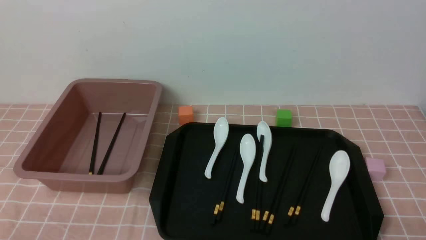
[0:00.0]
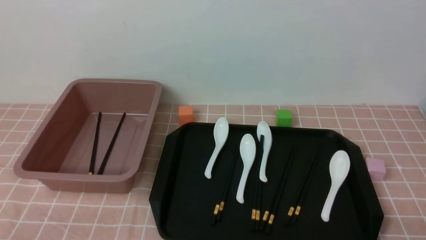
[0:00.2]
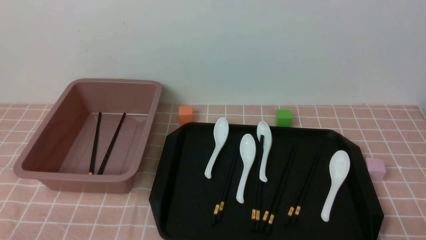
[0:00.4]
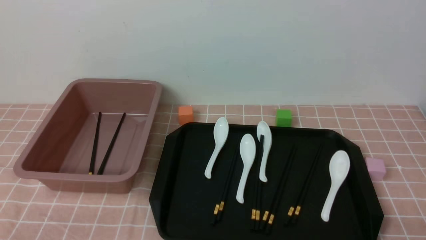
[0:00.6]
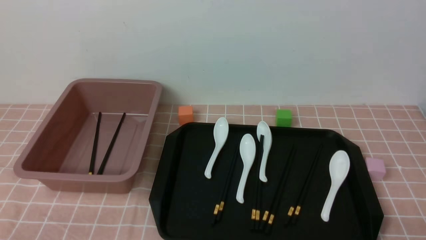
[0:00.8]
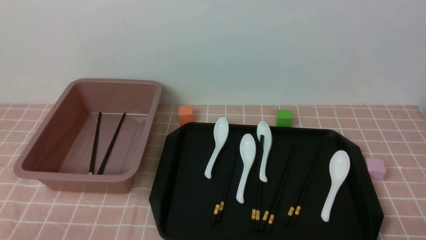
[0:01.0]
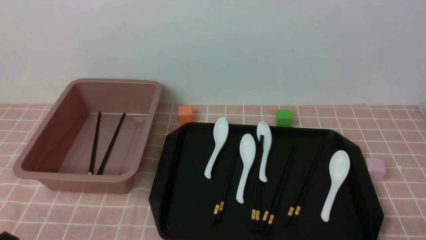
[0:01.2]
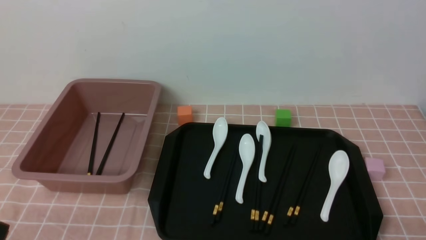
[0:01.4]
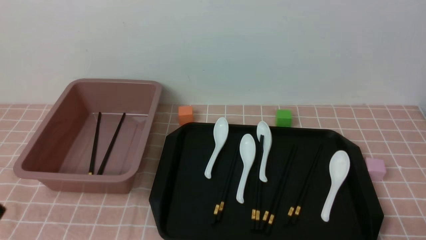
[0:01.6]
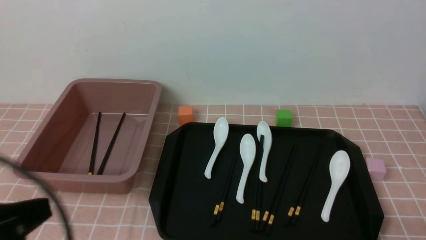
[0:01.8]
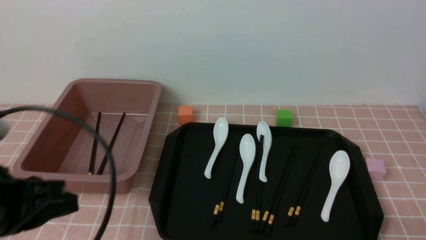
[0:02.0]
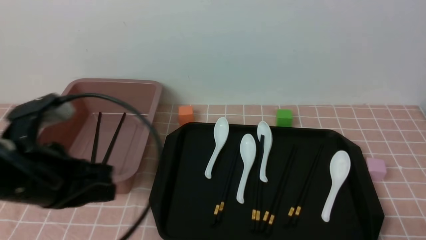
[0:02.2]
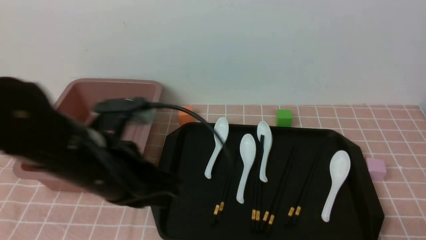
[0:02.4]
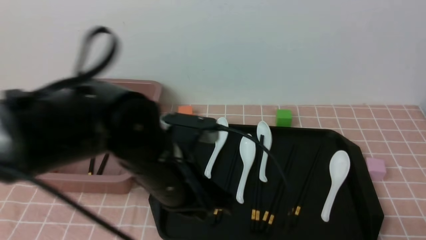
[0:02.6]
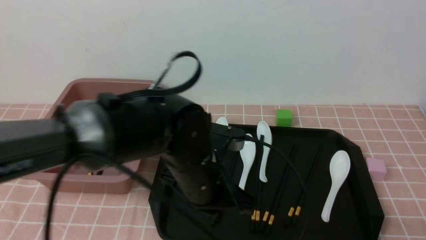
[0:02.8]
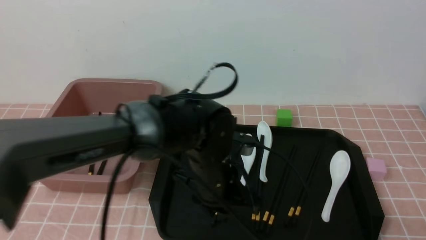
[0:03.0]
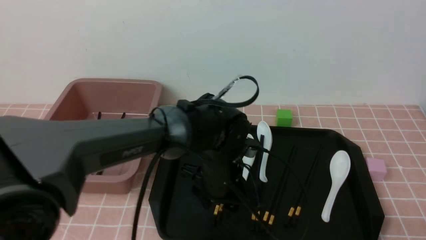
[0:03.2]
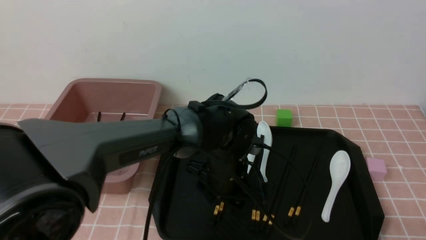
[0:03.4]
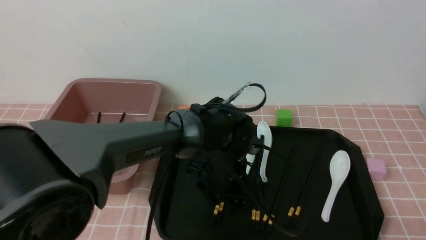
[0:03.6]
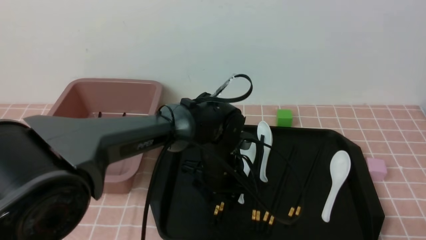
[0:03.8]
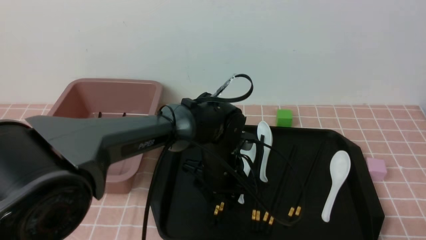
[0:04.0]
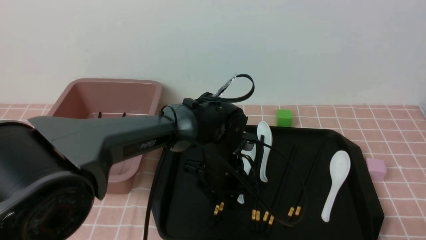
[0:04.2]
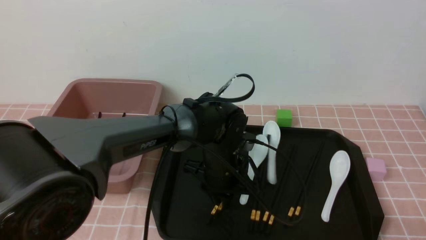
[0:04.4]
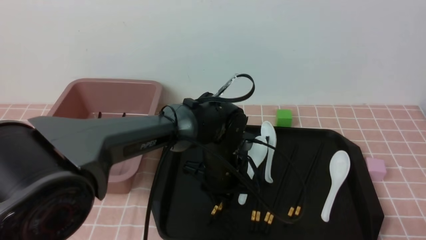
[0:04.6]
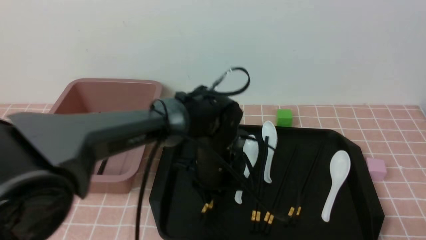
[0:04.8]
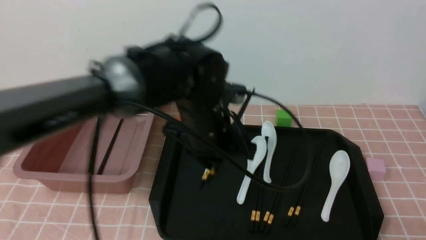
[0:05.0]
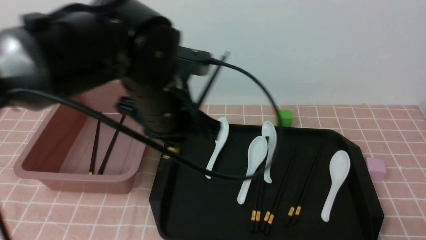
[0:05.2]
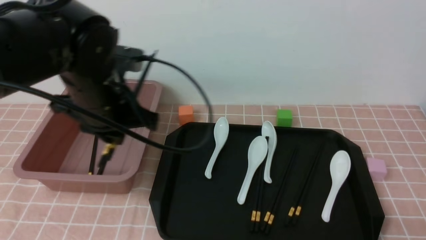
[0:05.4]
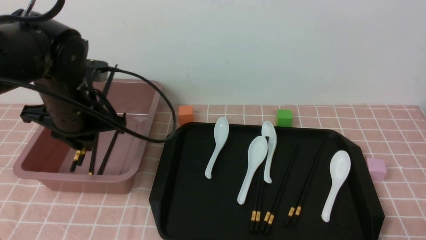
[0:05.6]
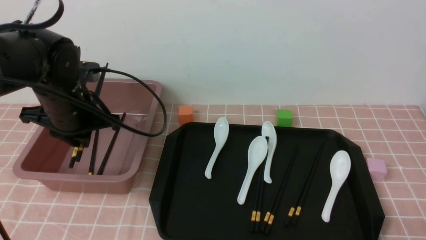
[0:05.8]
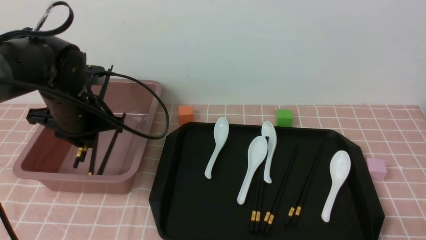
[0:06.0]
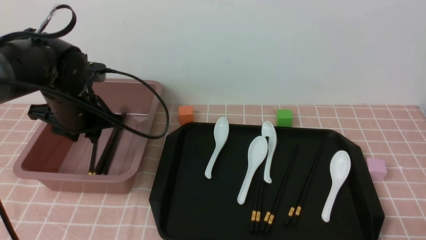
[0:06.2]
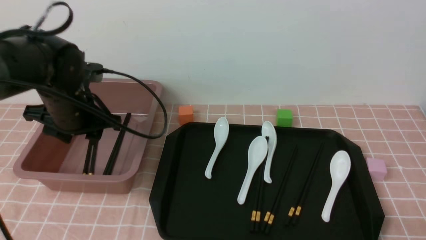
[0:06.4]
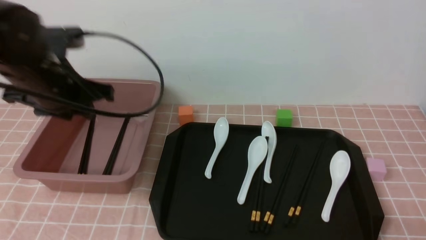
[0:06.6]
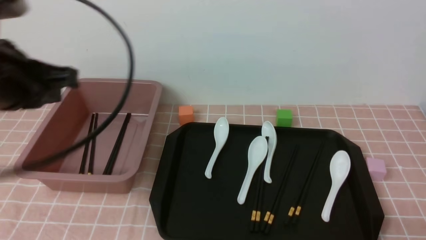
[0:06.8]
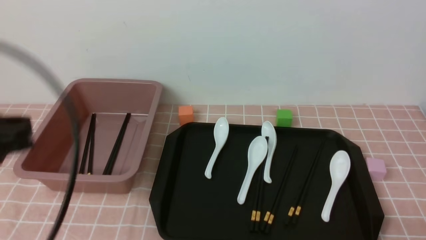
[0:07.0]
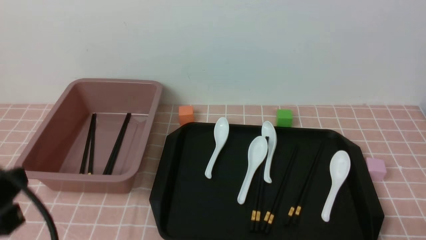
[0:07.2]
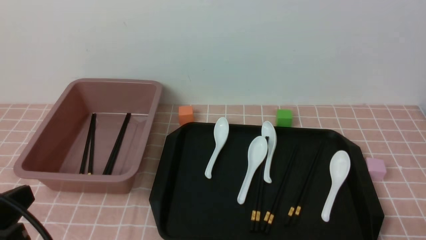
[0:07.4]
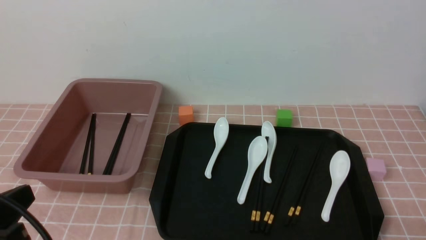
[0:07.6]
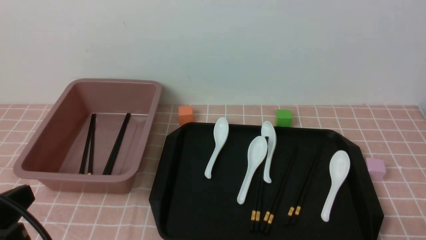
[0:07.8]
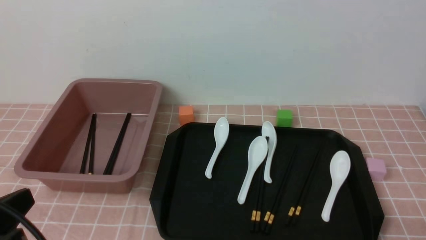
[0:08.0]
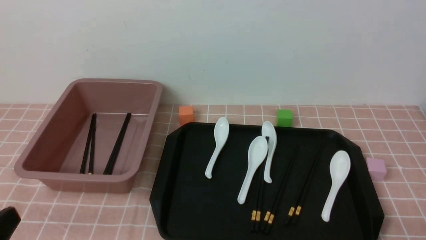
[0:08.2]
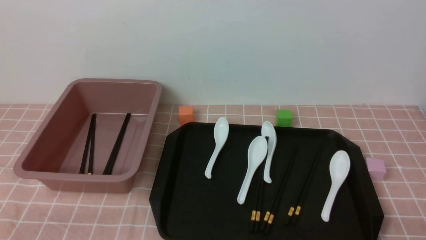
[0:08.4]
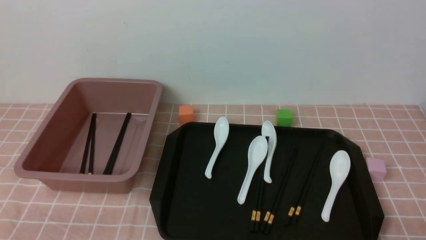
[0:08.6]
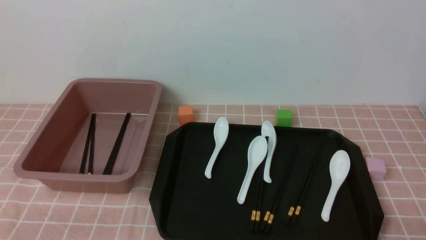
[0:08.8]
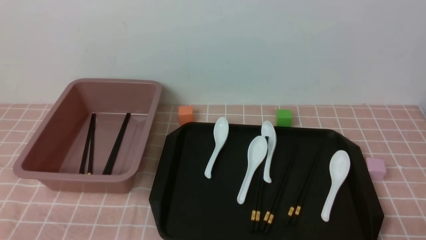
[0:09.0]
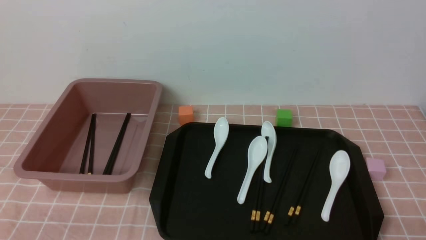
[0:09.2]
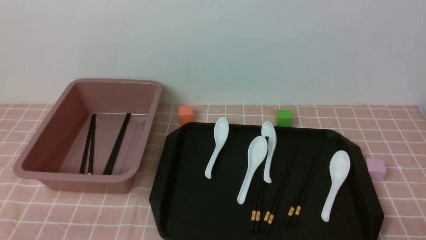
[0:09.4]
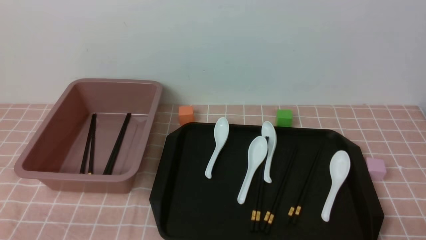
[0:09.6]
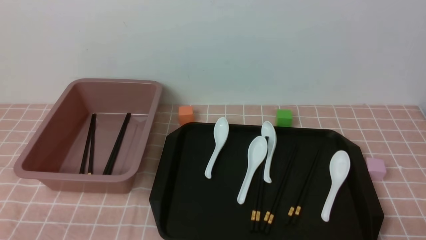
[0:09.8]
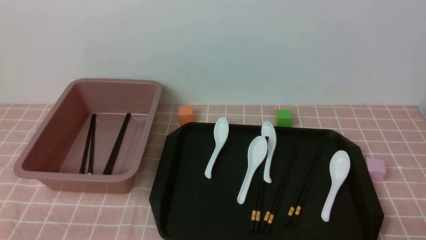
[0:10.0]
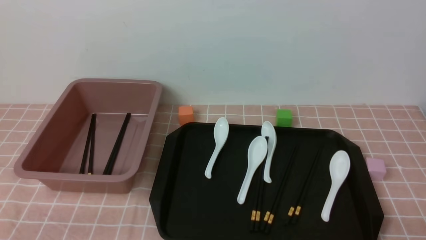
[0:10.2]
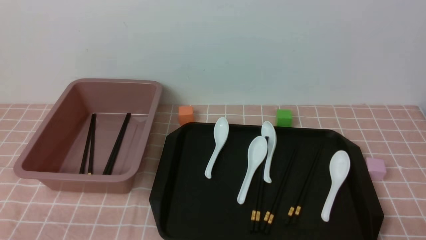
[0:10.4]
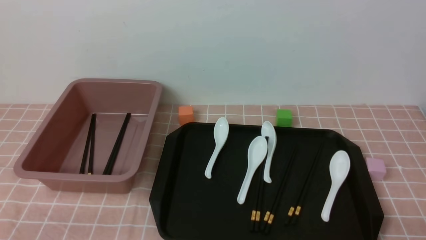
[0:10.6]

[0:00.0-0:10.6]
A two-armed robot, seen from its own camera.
Step, 0:00.0 to 0:05.0: use the left arm to grab a pair of chopsticks.
Step, 0:05.2 to 0:06.4: use the left arm to put the chopsticks into the lunch box.
0:01.6 to 0:03.0: The left gripper goes approximately 35 cm to the right and forward, and opens.
0:03.0 to 0:04.6: The left gripper goes some 5 cm forward, and opens, then closes once more.
0:04.6 to 0:06.0: The left gripper travels to the left and upward by roughly 25 cm.
0:06.0 to 0:07.6: The left gripper is displaced backward by about 25 cm, and closes.
0:07.6 to 0:09.0: The left gripper heads downward, covering about 10 cm.
0:09.0 to 0:10.6: Both grippers stay about where they are.

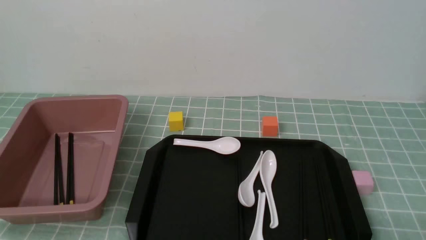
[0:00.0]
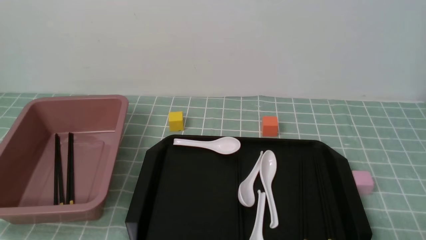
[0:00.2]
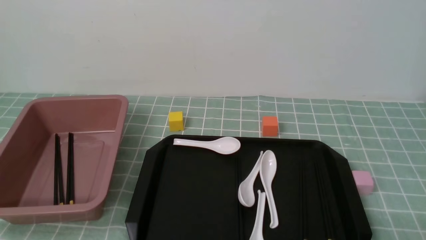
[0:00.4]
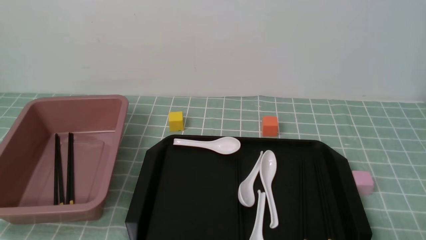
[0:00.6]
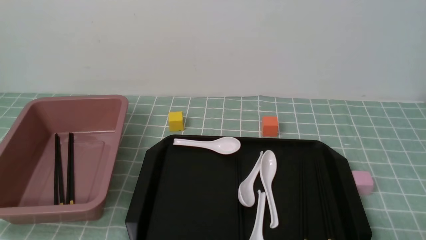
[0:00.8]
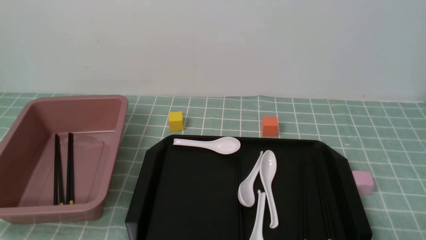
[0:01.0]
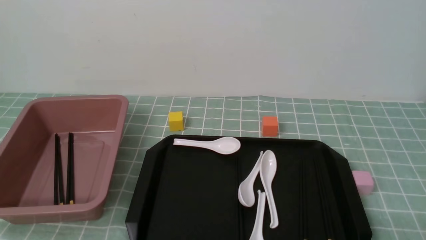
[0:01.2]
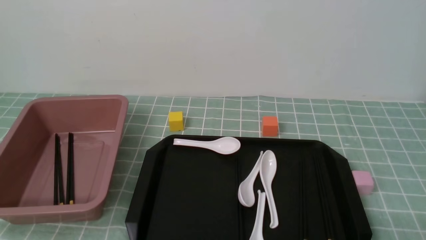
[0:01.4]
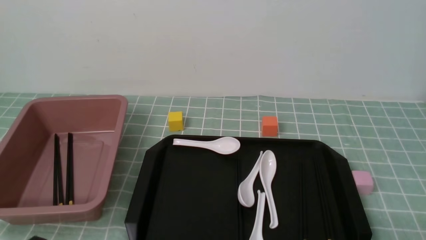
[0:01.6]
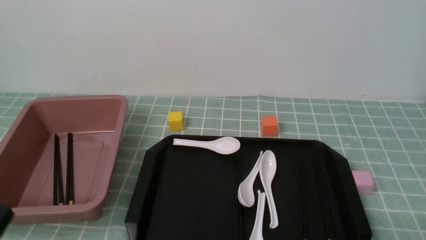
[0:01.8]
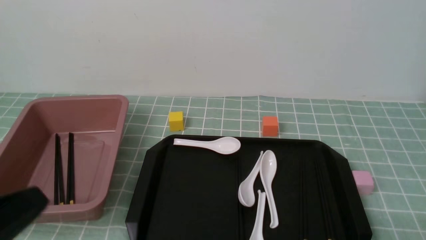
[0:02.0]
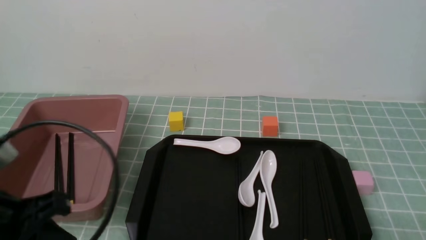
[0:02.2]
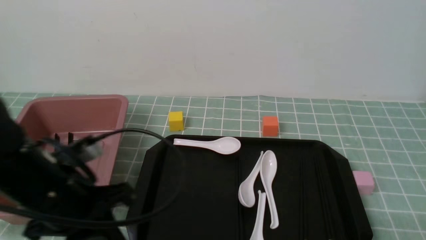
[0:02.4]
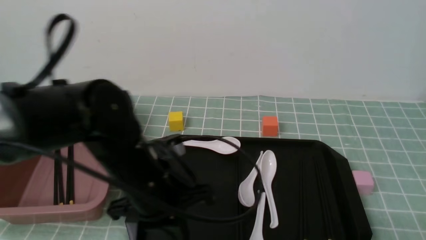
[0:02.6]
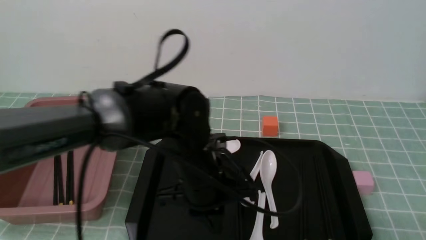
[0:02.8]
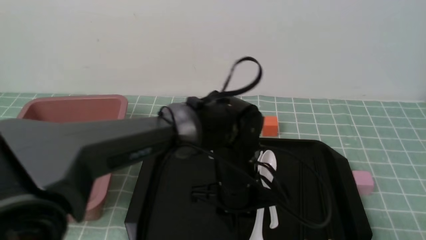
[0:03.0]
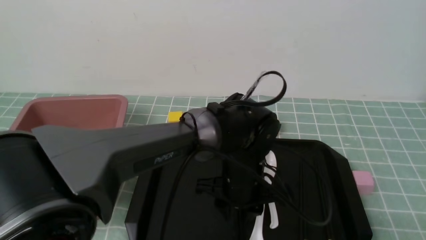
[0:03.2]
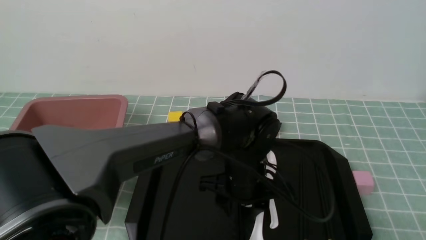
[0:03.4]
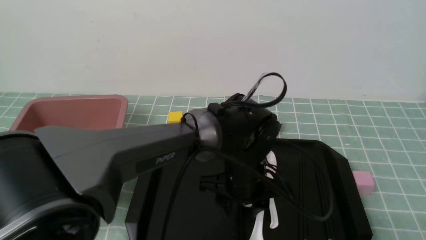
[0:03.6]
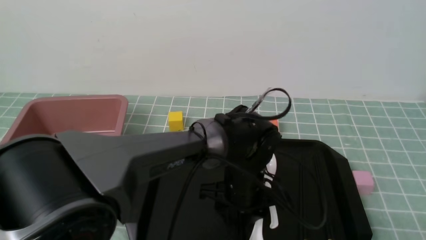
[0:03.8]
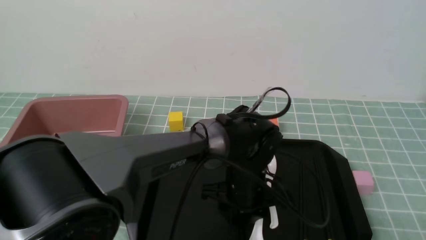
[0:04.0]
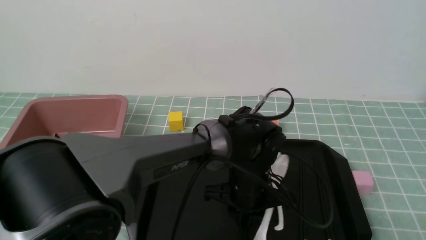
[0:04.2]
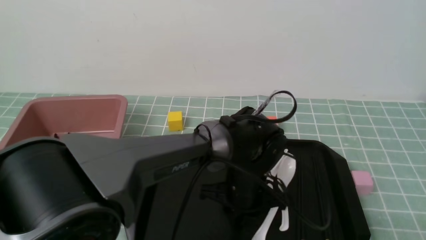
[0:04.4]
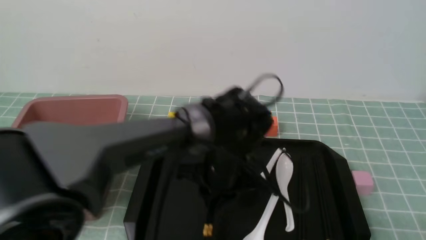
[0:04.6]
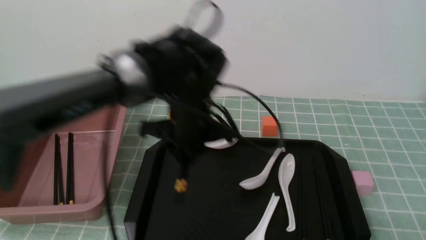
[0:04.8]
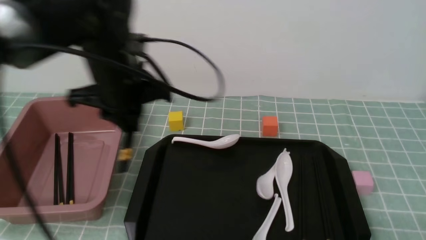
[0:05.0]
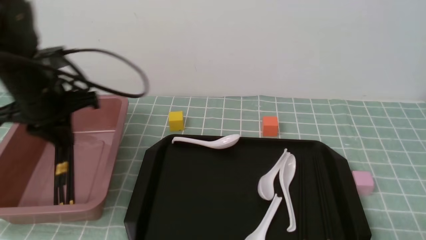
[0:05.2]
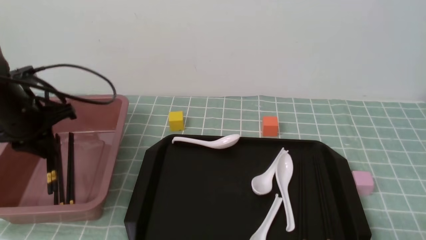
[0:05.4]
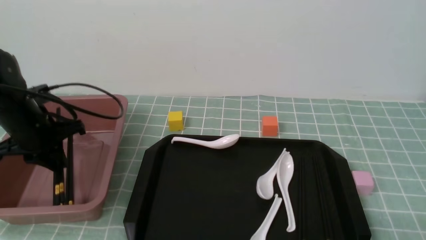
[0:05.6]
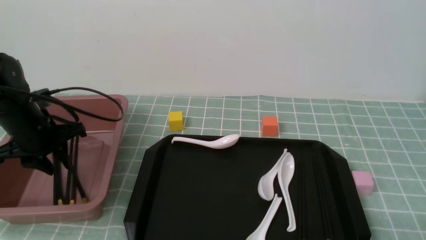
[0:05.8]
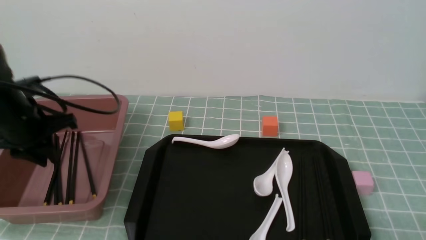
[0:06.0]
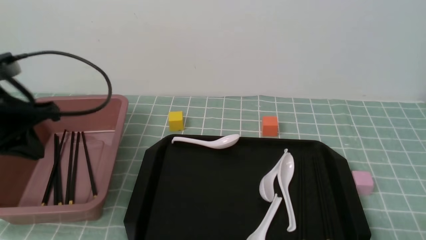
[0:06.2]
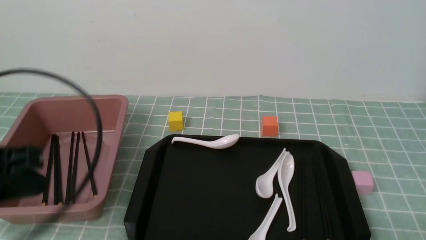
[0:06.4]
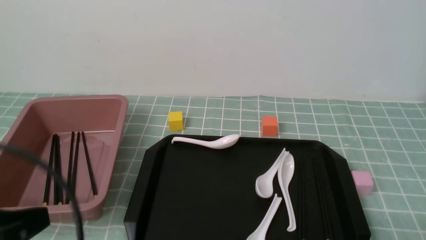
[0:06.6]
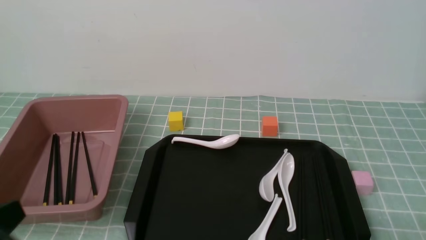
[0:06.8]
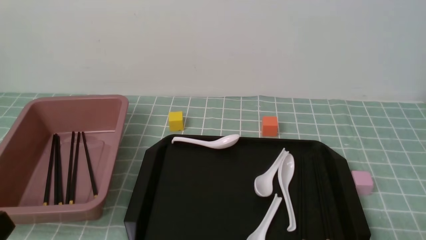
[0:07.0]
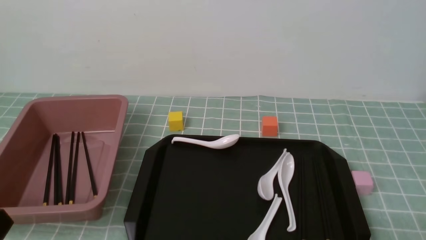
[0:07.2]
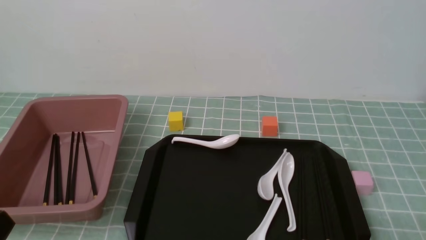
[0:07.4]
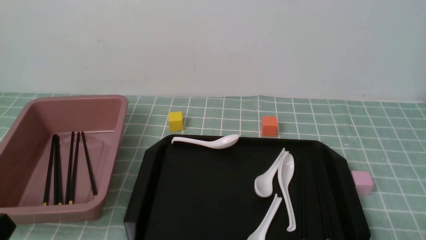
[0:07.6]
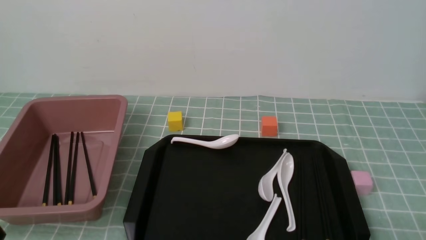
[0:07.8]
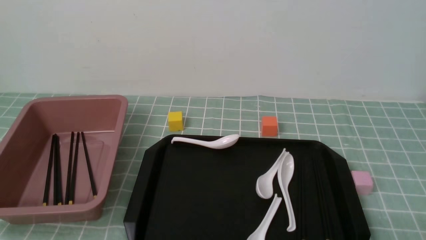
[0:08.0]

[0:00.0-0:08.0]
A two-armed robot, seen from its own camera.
Step, 0:00.0 to 0:04.8: use the left arm to grab a pair of chopsticks.
Step, 0:05.0 to 0:07.0: use the left arm to put the chopsticks into the lunch box.
0:01.6 to 0:03.2: The left gripper is displaced to the right and forward by about 40 cm.
0:03.2 to 0:04.8: The left gripper moves to the left and upward, some 10 cm, and opens, then closes once more.
0:04.8 to 0:06.4: The left gripper moves to the left and backward, about 25 cm.
0:06.4 to 0:08.0: The left gripper is displaced backward and downward by roughly 20 cm.
